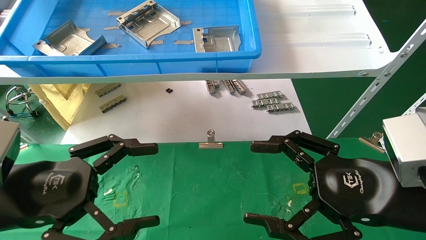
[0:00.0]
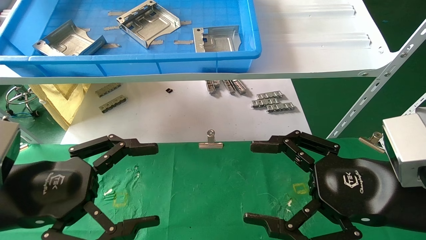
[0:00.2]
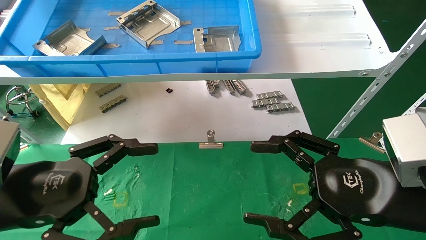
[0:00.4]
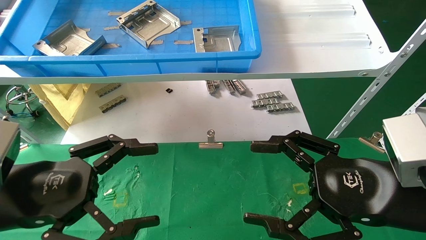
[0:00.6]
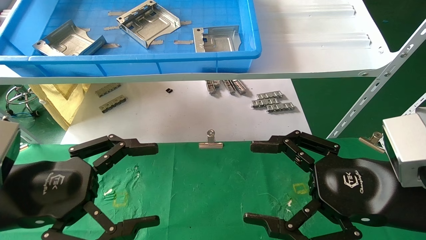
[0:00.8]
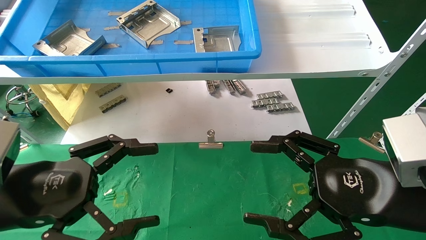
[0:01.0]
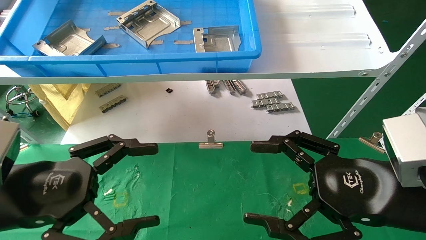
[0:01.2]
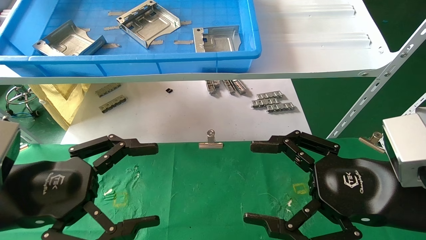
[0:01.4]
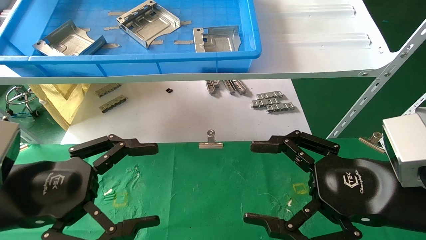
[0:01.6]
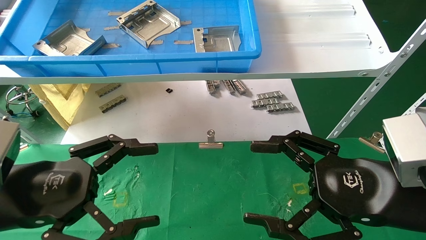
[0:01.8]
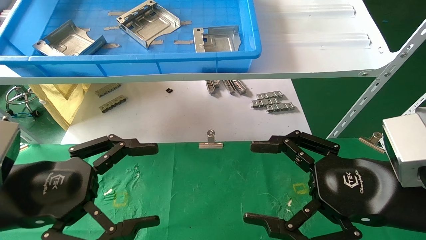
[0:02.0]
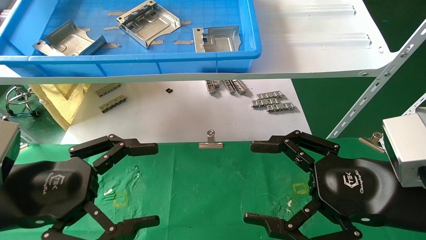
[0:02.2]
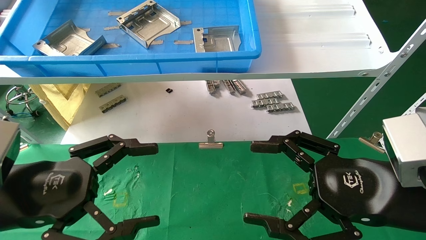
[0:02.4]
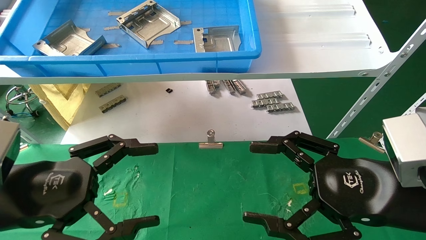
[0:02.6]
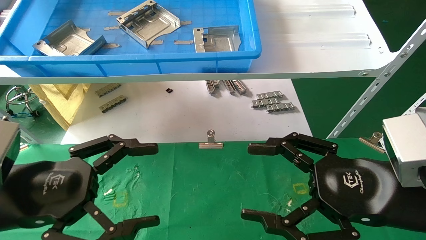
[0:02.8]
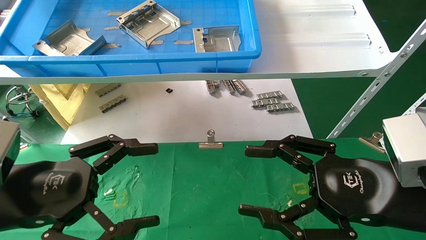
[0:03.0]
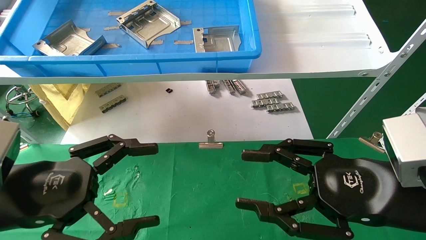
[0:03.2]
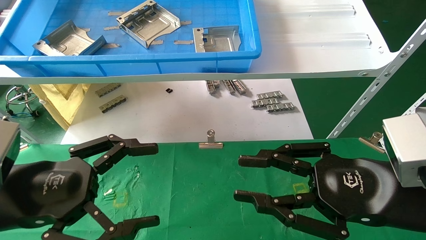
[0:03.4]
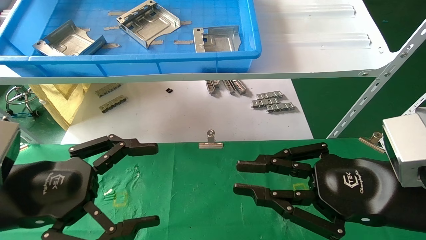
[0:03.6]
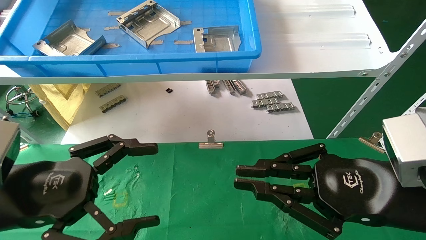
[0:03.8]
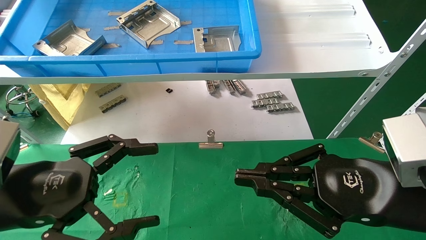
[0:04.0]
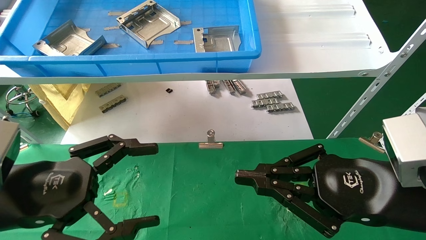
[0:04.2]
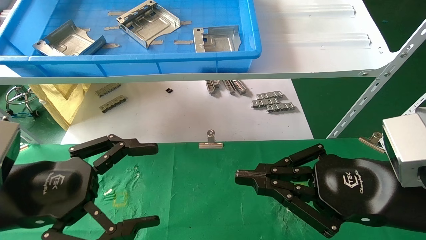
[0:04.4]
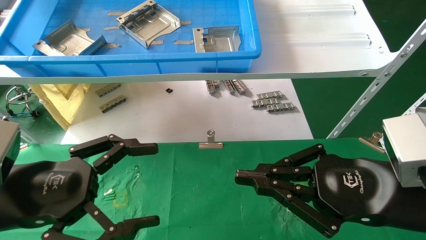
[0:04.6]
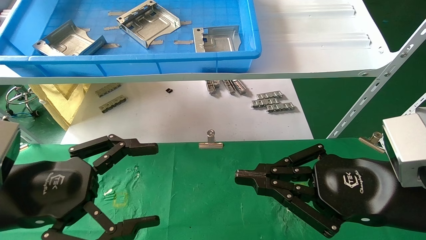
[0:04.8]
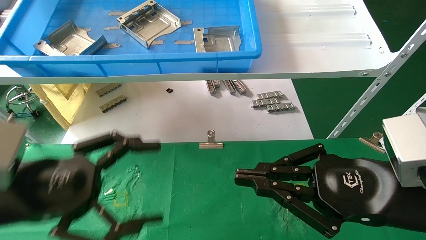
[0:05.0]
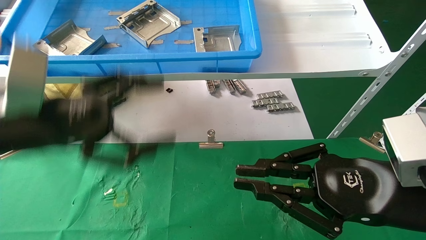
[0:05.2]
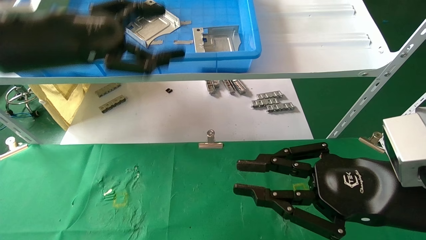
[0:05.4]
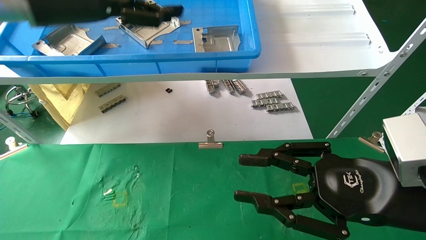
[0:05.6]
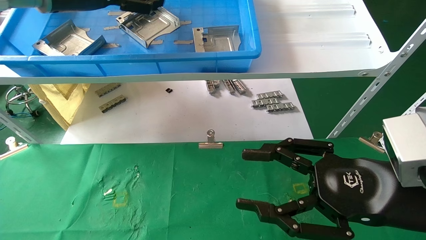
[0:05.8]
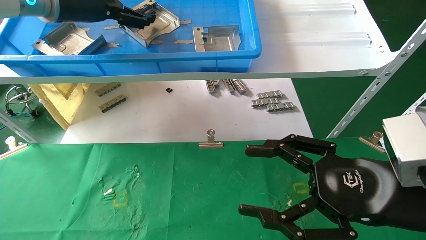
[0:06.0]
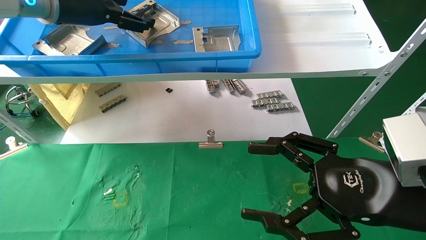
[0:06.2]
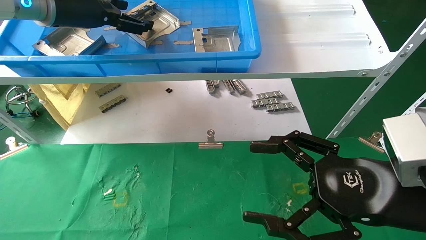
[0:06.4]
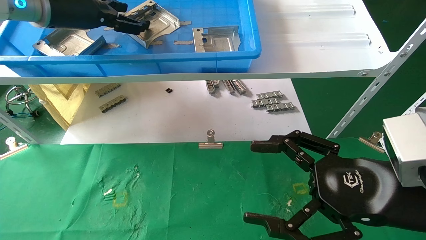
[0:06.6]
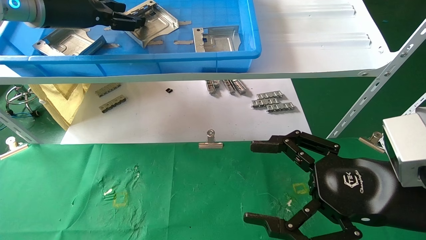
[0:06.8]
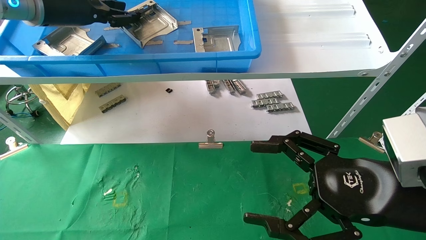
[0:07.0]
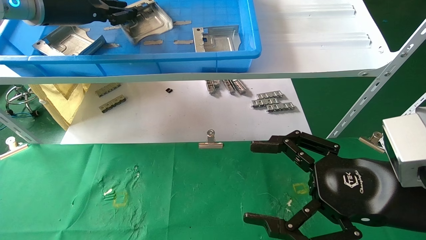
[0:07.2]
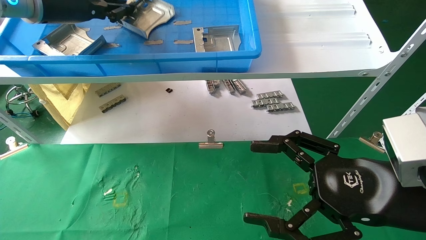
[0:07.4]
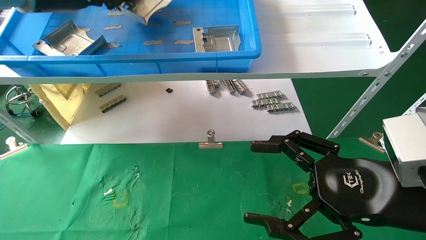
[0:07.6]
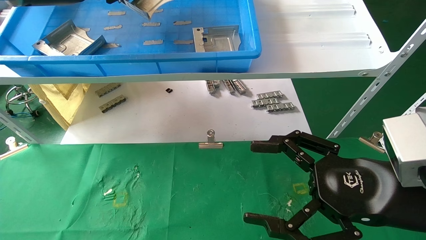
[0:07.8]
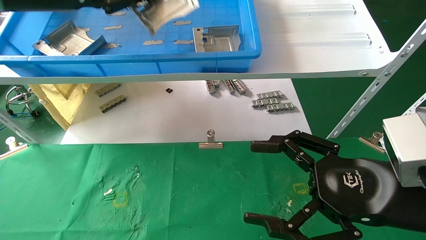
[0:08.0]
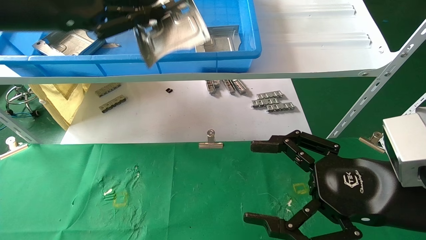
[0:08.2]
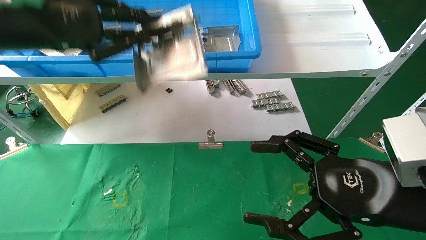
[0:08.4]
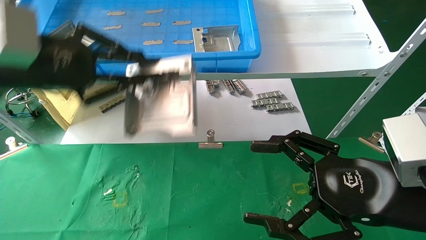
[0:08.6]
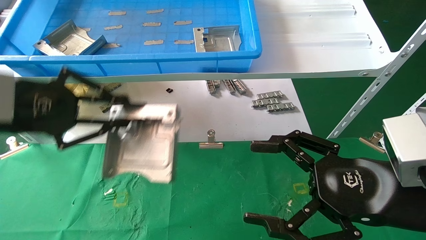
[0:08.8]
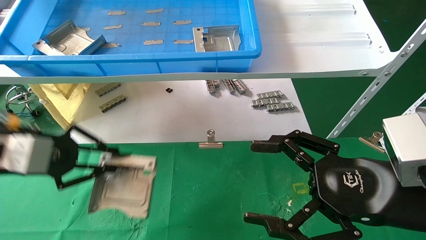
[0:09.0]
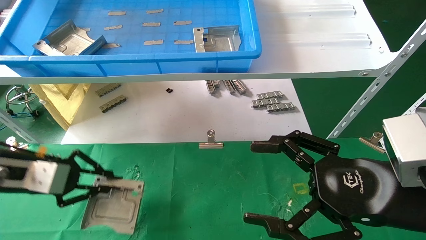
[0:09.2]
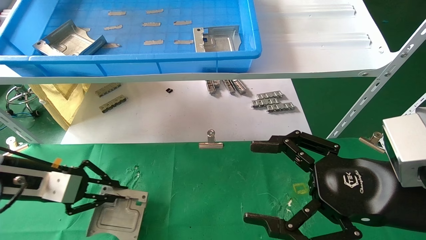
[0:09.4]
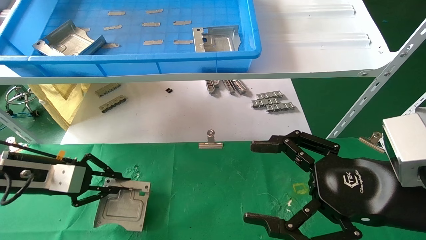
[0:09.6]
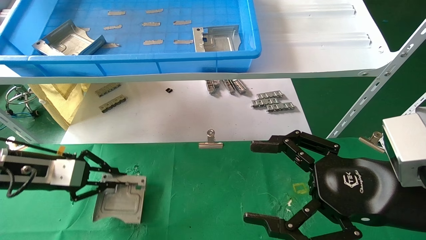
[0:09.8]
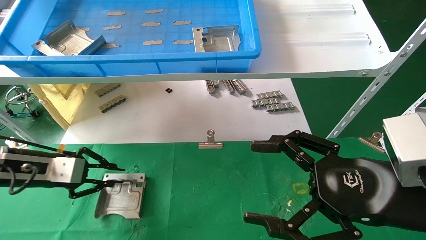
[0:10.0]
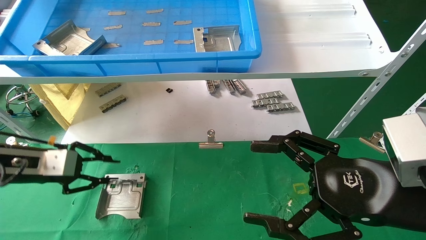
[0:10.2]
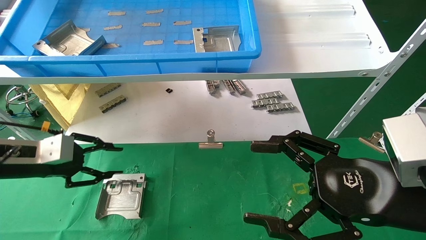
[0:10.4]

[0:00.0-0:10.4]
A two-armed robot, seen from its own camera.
Task of the whole recording: use the mechanical arm to pick up the parts and place them on the table.
Step, 0:05.0 to 0:07.4: Pick up the hard drive bracket from the feeding area.
Step, 0:07.6 to 0:10.4: Place the hard drive bracket into the box.
0:00.0 to 0:03.0: Neither gripper changes place.
0:03.0 to 0:04.4: The right gripper closes up.
0:04.4 to 0:06.0: The left gripper goes some 30 cm upward and forward, while the right gripper opens up.
0:06.0 to 0:07.4: The left gripper closes its fingers, while the right gripper opens up.
0:07.4 to 0:09.0: The left gripper goes some 25 cm downward and backward.
0:09.0 to 0:10.4: The left gripper is displaced downward and forward by some 10 cm.

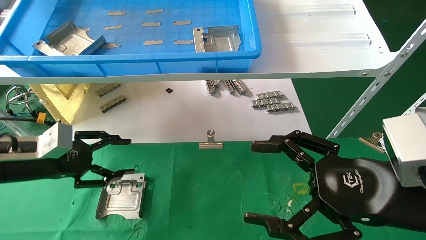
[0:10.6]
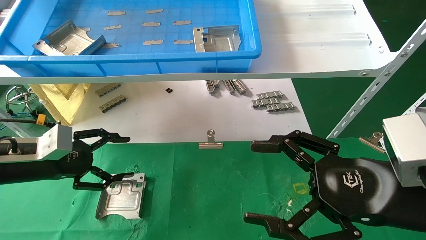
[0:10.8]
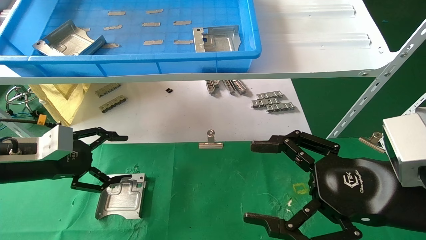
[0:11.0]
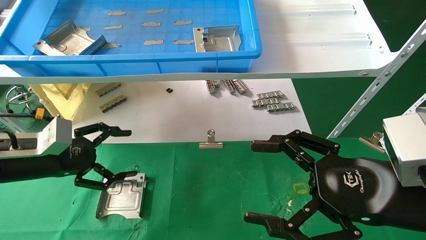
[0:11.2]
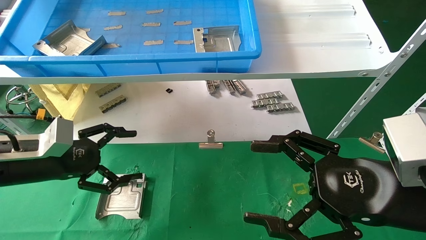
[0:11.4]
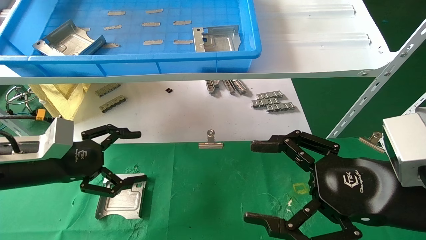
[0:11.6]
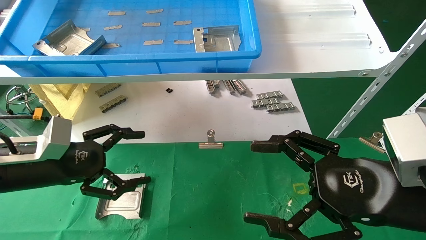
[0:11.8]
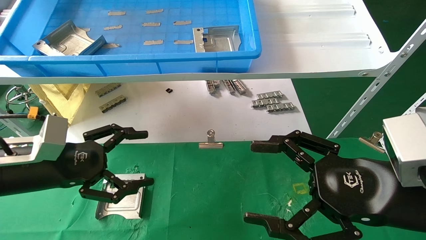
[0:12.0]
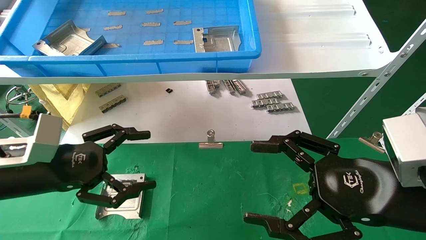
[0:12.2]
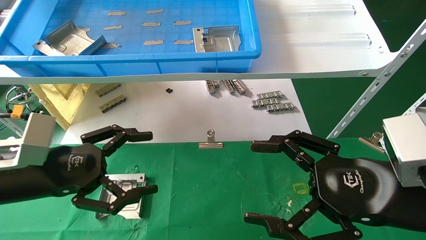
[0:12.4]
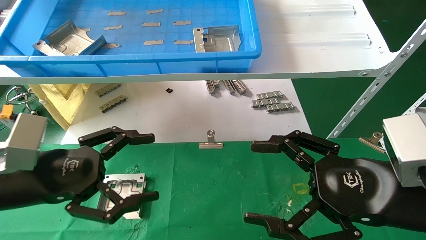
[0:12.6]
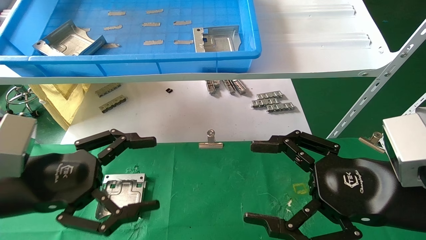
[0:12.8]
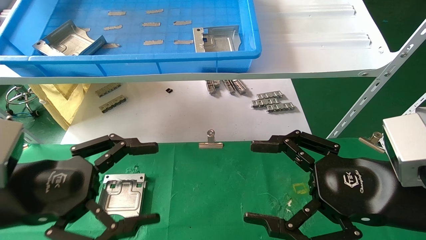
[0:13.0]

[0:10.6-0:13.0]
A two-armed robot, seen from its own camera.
Task of the whole recording: use the mechanical arm to pick up the parts and place them on the table.
0:10.6 to 0:11.8: The left gripper moves about 5 cm, and opens up.
0:11.8 to 0:13.0: The left gripper heads backward, covering roughly 10 cm.
